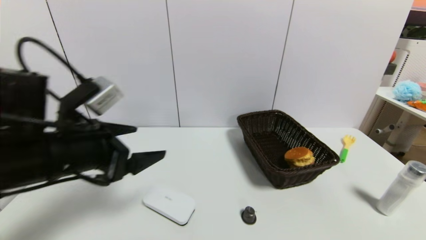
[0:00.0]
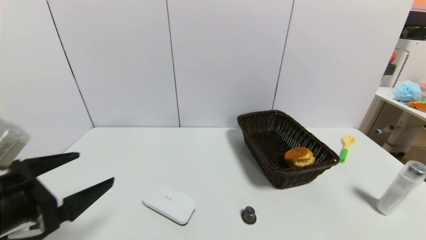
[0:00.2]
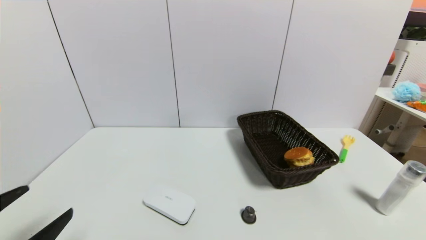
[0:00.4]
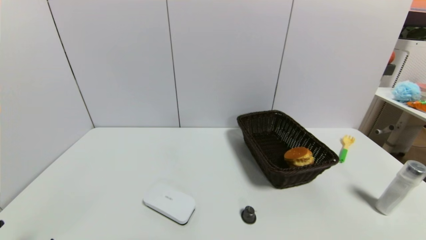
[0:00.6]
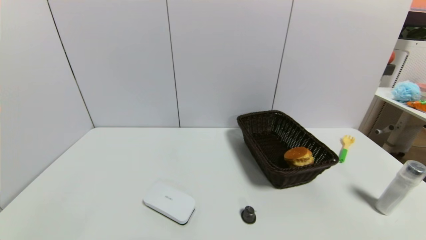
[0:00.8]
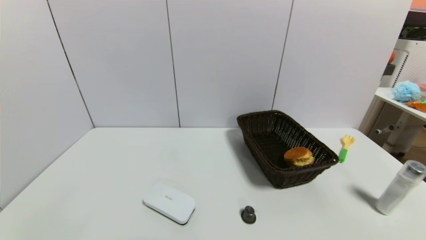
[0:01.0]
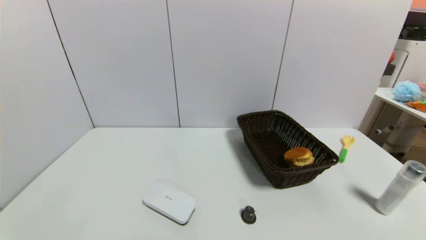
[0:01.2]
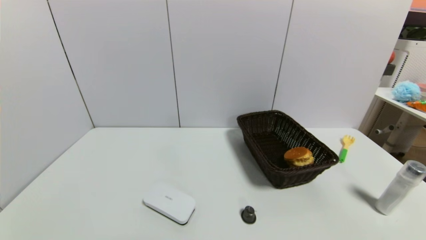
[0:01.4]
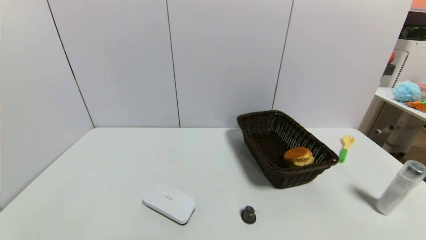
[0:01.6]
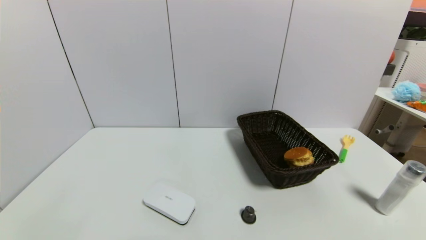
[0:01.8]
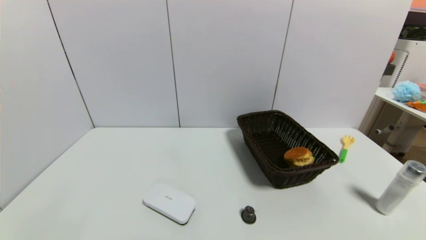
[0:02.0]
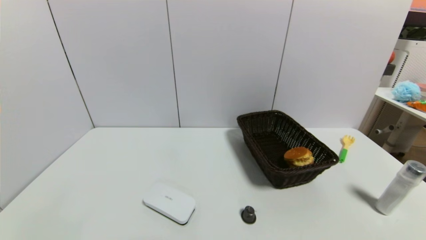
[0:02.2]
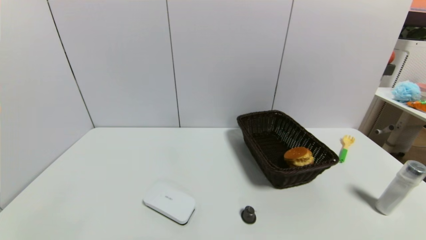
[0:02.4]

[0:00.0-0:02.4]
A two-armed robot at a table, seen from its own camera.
Task of the whole recording: use a gripper to pick the target object and place on the brown basket.
0:00.0 to 0:01.2: The left gripper shifts approximately 25 cm backward, downward and to the left.
0:01.2 to 0:02.4: Neither gripper changes place.
